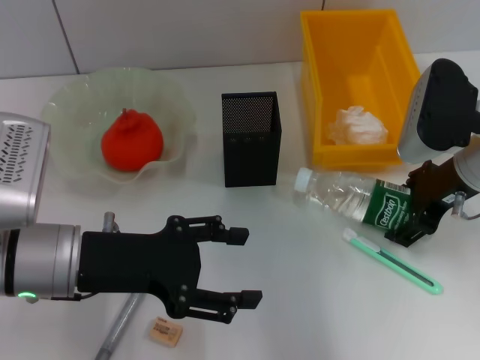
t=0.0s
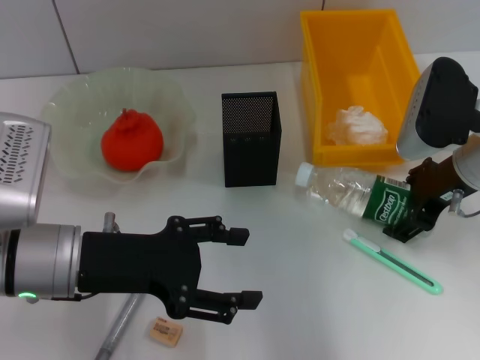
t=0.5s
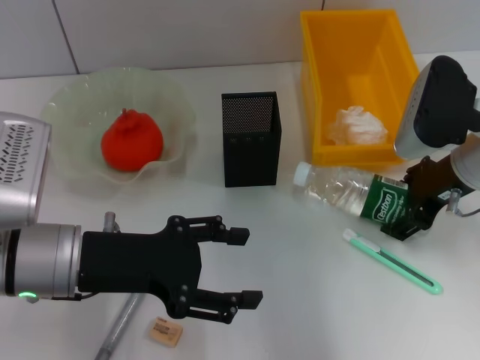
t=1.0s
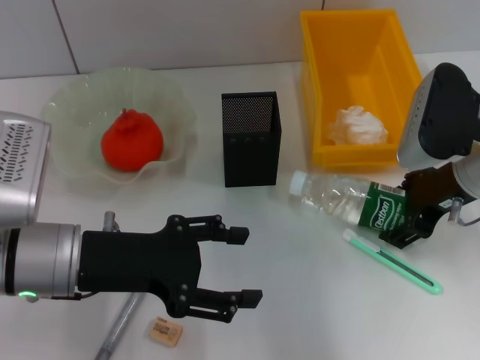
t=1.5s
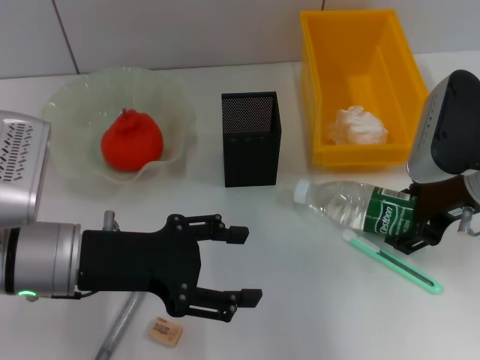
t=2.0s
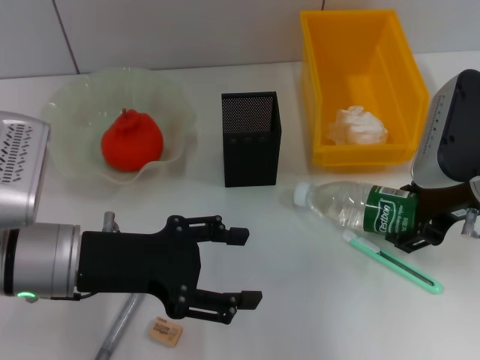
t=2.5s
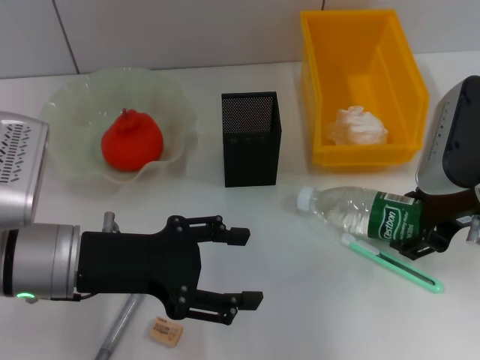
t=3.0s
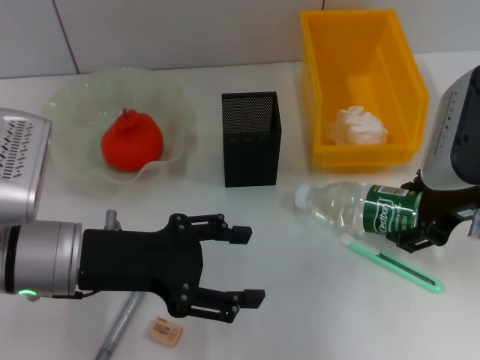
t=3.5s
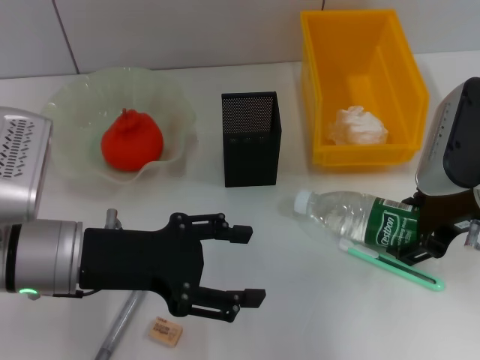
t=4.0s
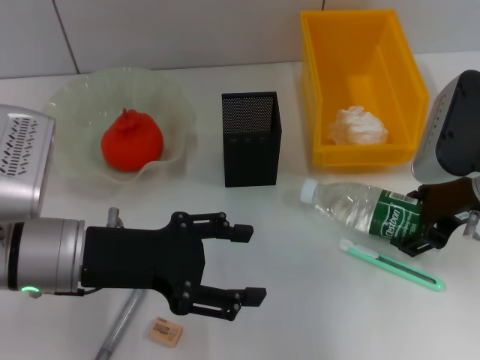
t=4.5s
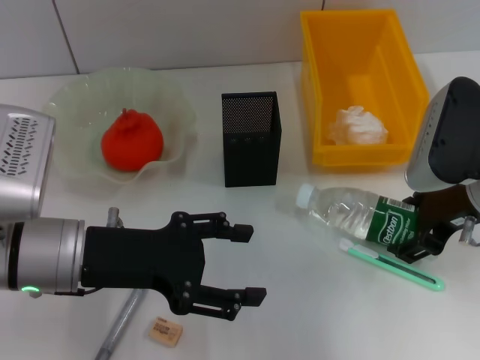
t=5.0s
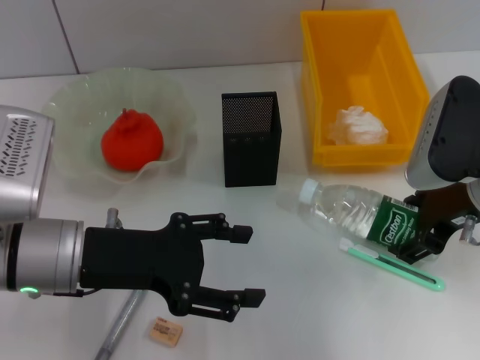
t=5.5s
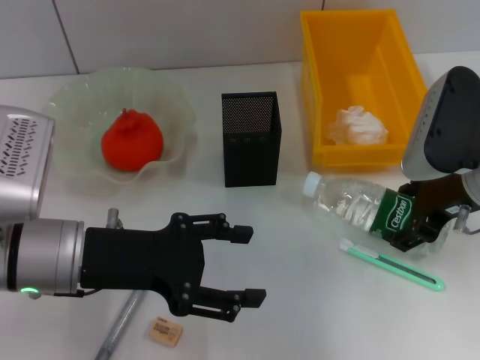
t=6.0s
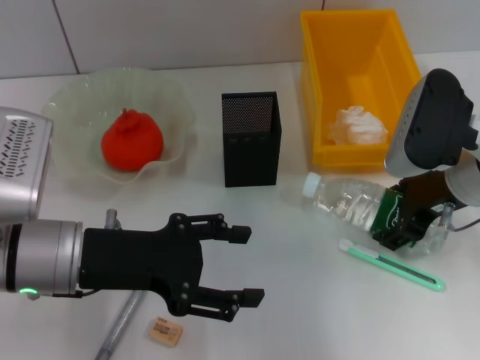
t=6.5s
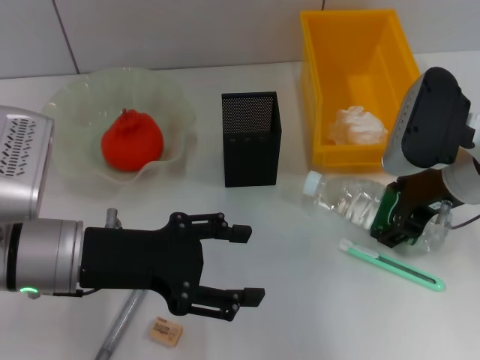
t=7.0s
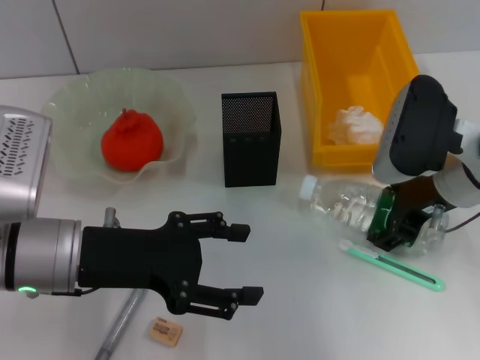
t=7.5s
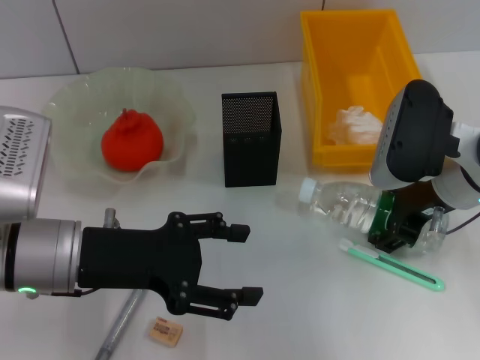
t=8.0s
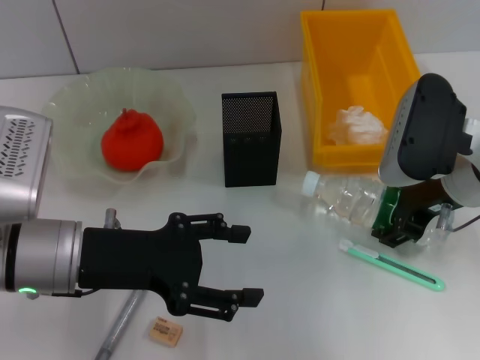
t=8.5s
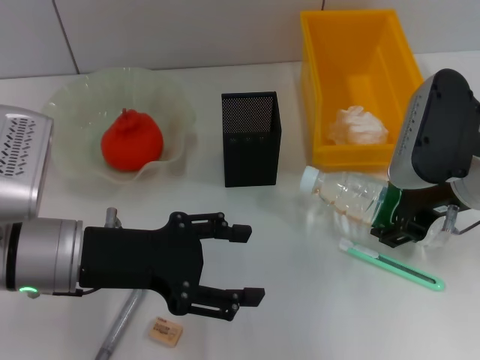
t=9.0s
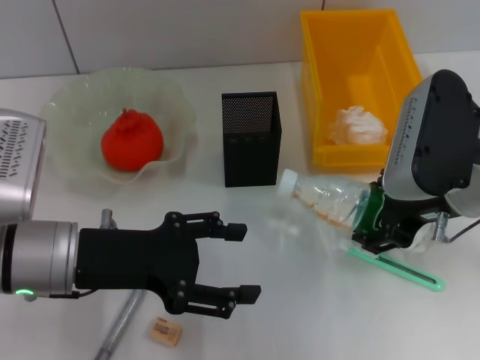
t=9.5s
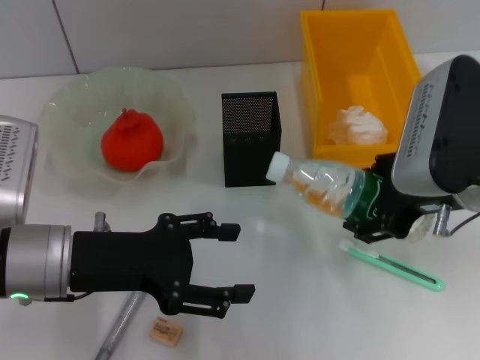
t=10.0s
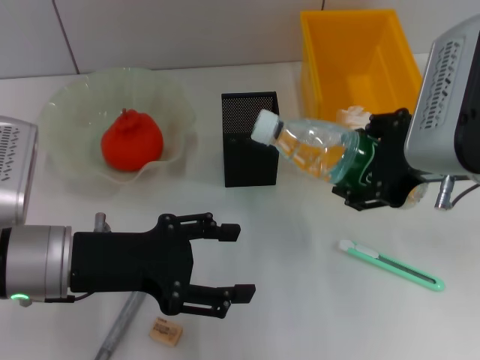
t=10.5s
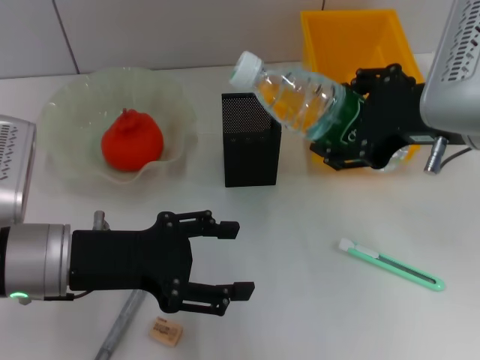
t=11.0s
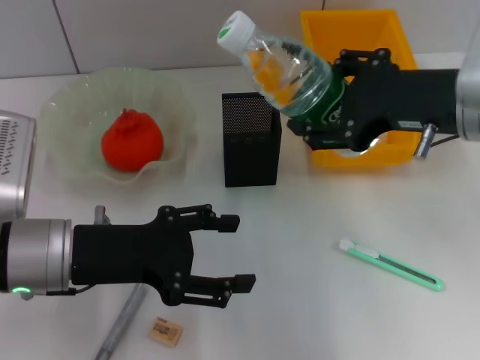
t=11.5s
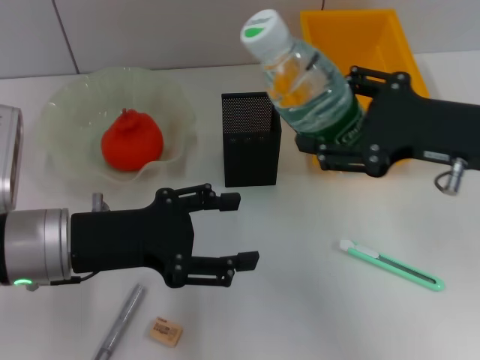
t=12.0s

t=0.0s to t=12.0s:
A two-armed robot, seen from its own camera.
Step, t=0.0s to t=8.0s: Grab the water bottle with the right hand.
t=0.0s to t=8.0s: The grippers make only small movements.
t=8.0s to t=10.0s: The right gripper shifts approximately 5 cm upward.

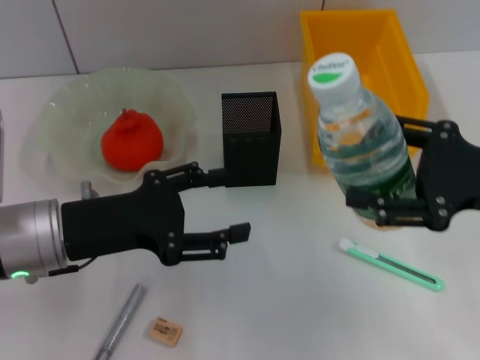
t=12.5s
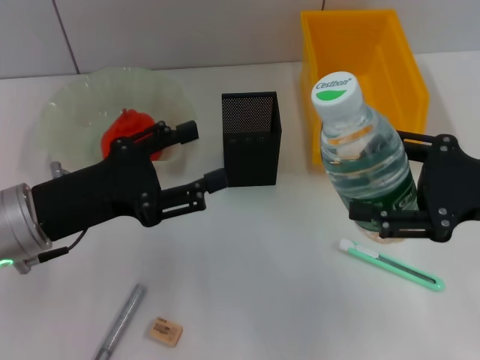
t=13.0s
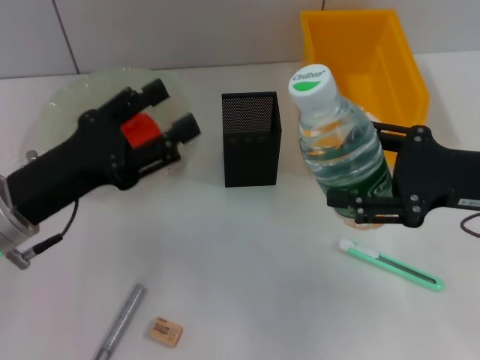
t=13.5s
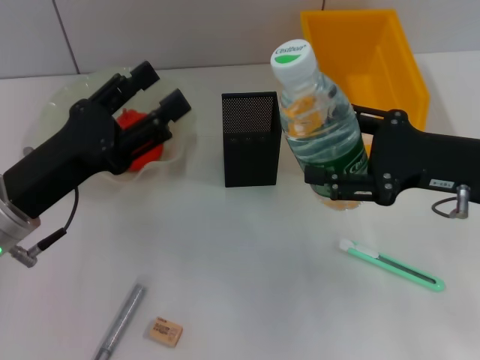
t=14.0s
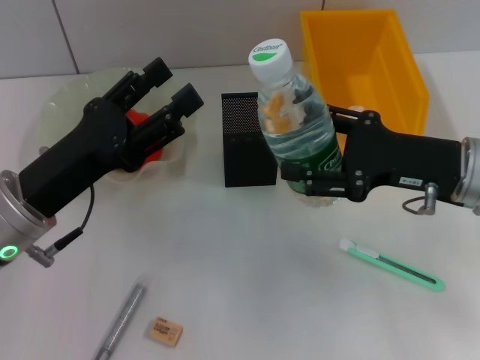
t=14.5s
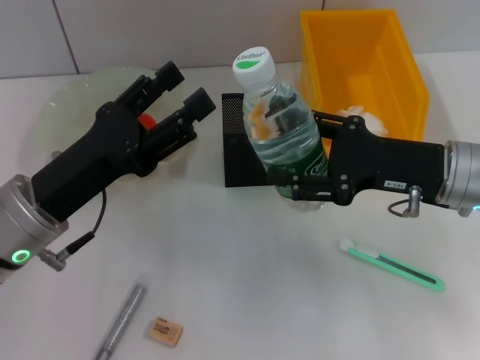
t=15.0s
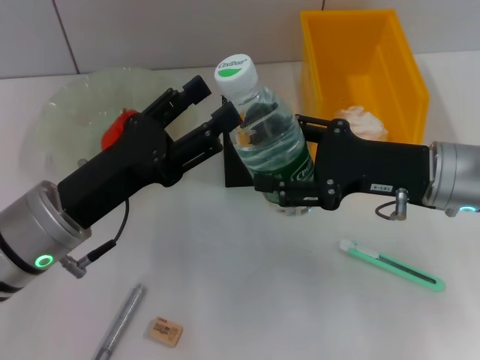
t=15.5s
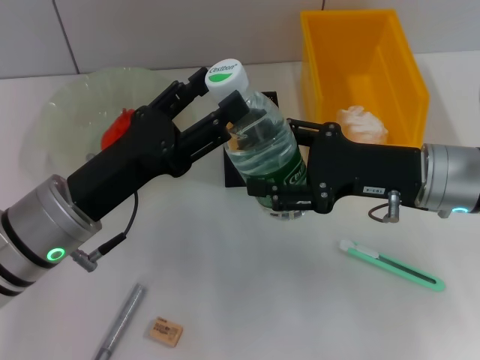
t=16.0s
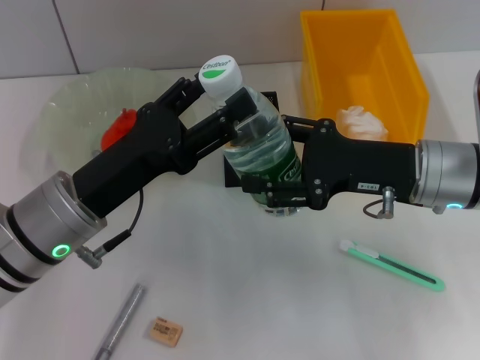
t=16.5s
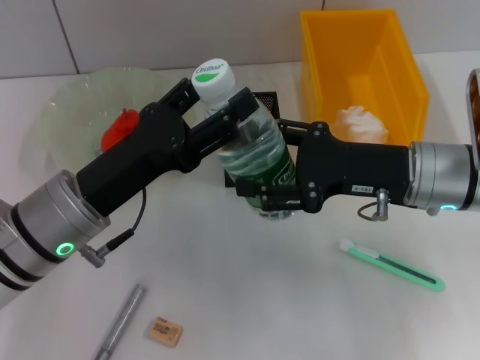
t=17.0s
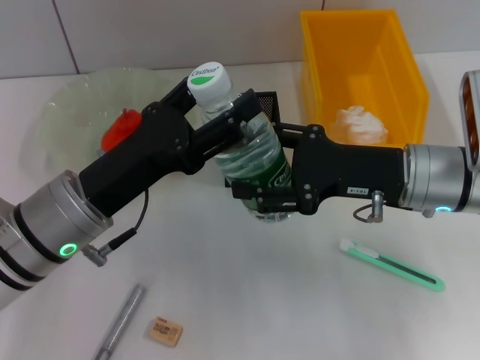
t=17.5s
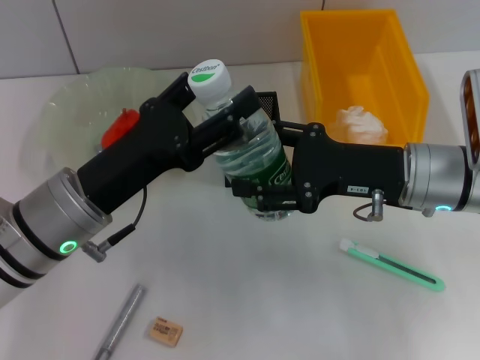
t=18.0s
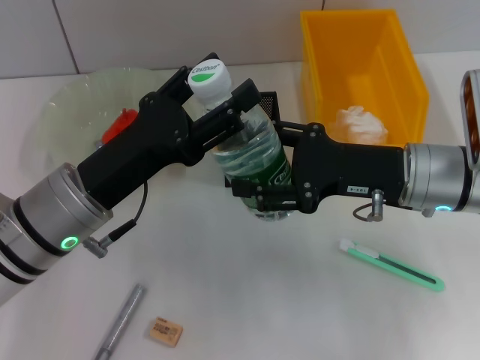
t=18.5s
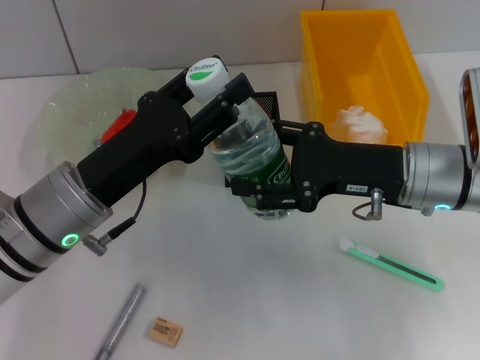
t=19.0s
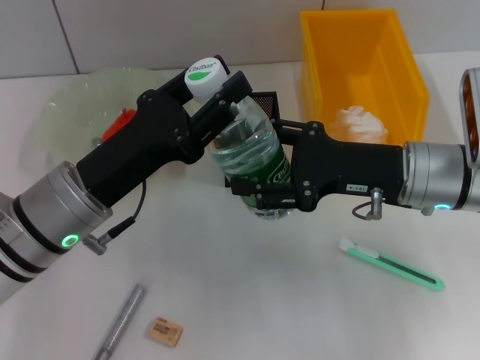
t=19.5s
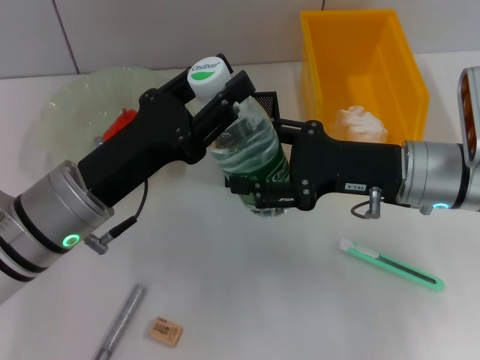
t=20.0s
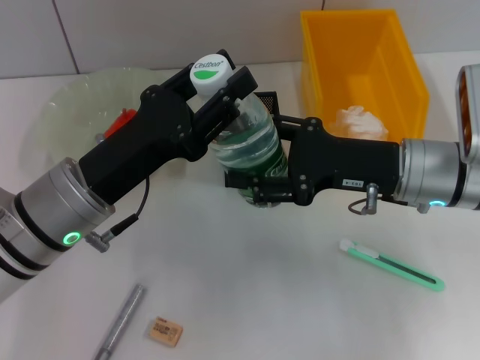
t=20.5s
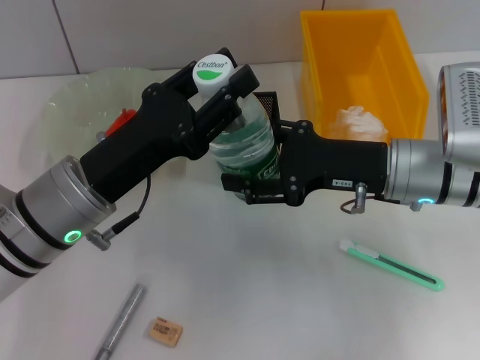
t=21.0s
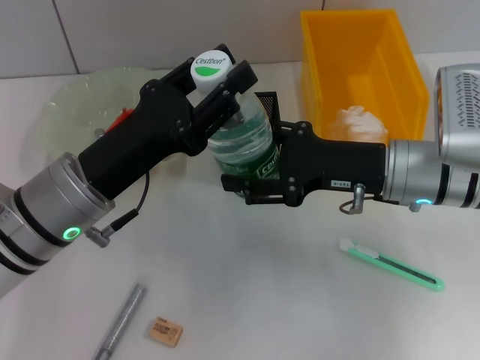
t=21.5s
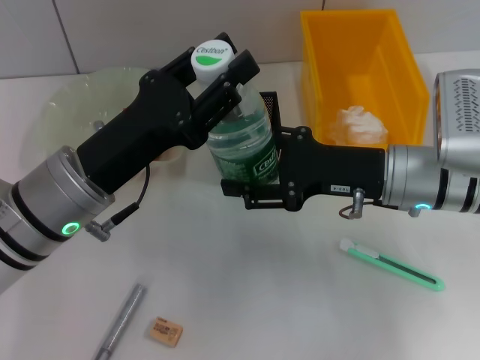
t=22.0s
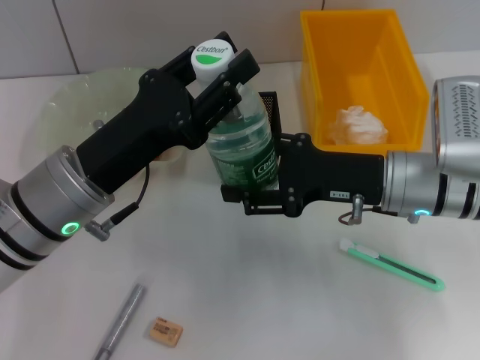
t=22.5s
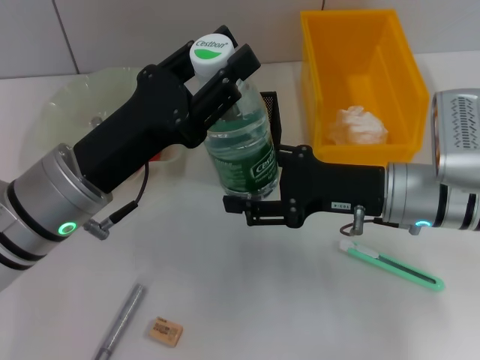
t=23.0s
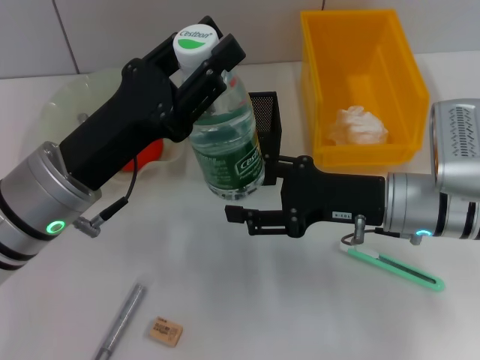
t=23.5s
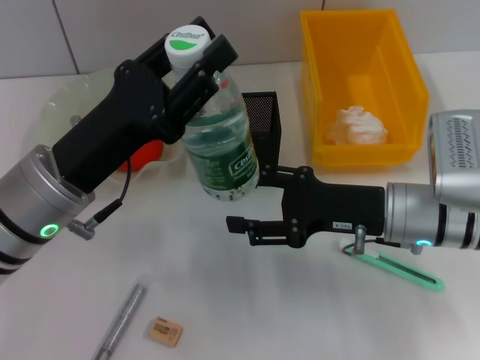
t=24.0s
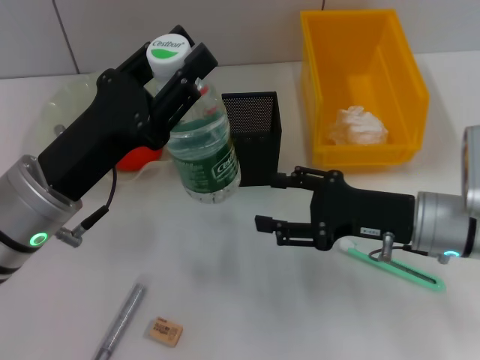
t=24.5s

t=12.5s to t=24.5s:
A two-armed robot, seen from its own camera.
Step, t=12.5s to t=23.5s: Pass the water bottle from the right hand to the left hand.
t=12.5s to t=14.5s: The right gripper moves forward, approximately 5 cm.
t=16.5s to t=18.5s: Neither gripper changes place.
t=18.5s to t=20.5s: The left gripper closes its fingers.
t=20.5s to t=22.5s: The grippers make only small movements.

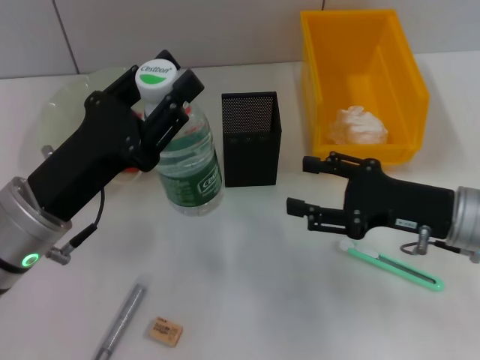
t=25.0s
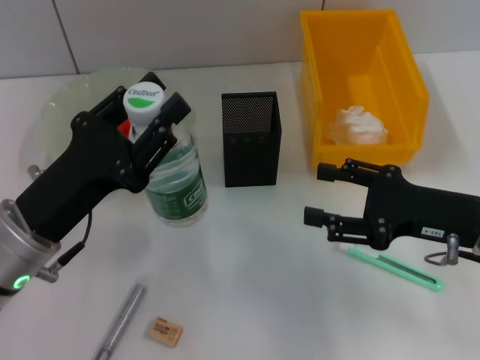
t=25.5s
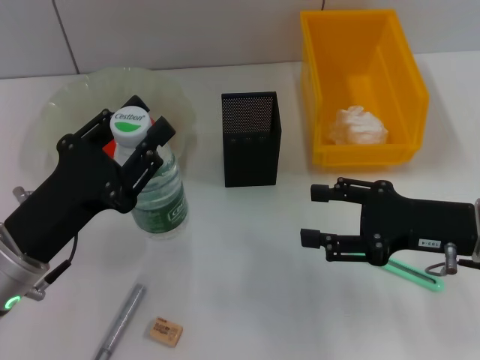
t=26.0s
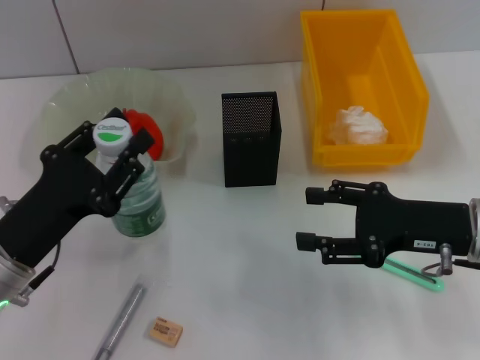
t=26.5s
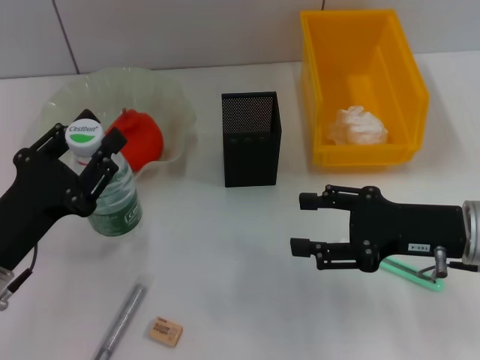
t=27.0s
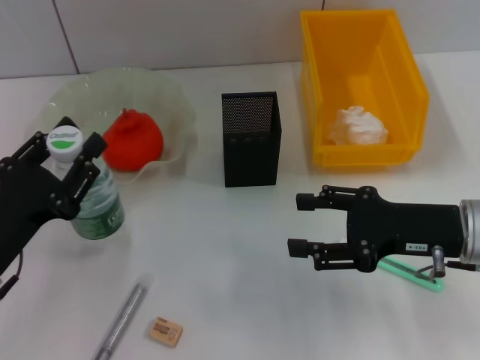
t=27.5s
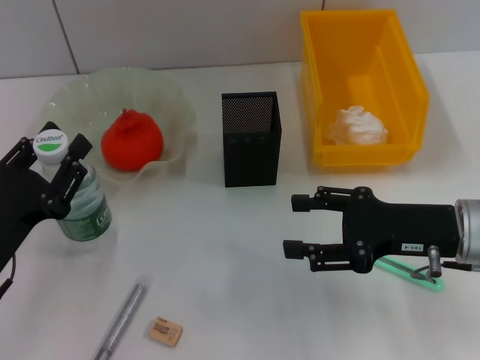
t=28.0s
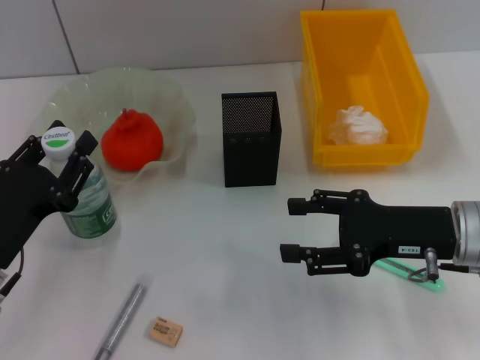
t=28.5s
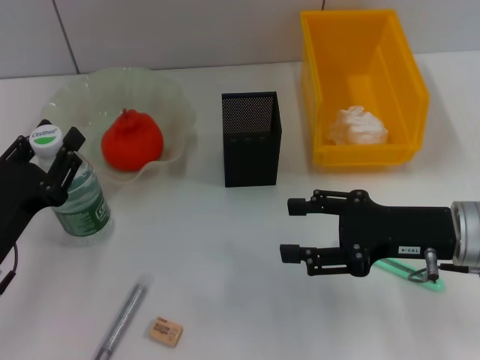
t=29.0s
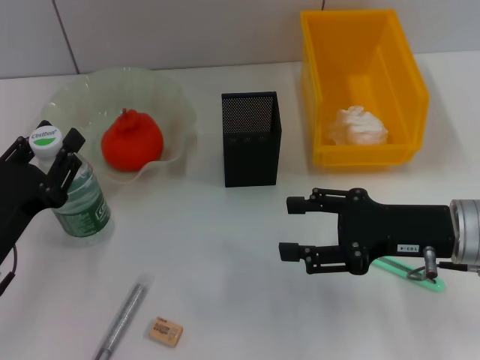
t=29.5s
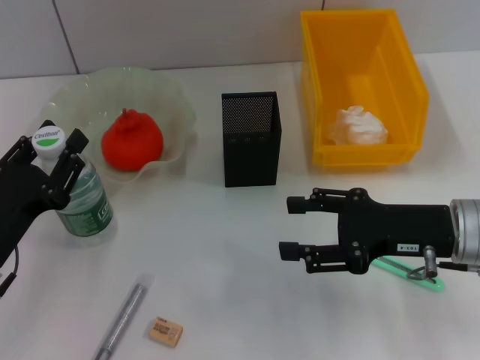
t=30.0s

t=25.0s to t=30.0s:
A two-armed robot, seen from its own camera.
t=25.0s to t=27.5s: The left gripper is displaced to the left by approximately 5 cm.
t=27.5s to t=30.0s: The grippers stay close to where they were, moving slightly.
